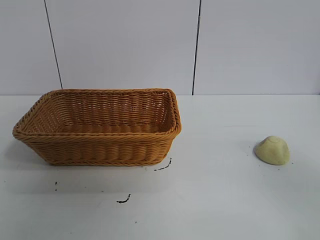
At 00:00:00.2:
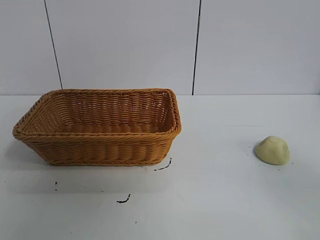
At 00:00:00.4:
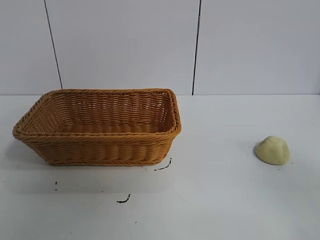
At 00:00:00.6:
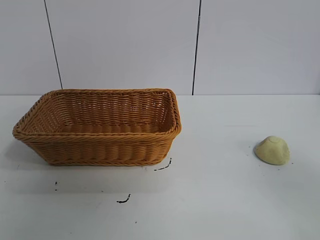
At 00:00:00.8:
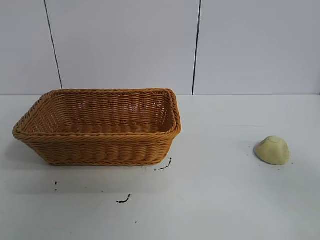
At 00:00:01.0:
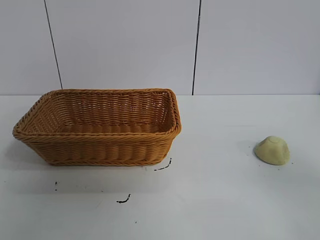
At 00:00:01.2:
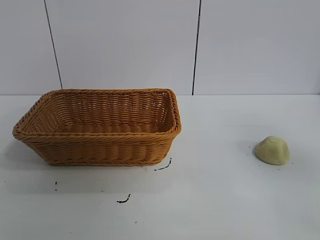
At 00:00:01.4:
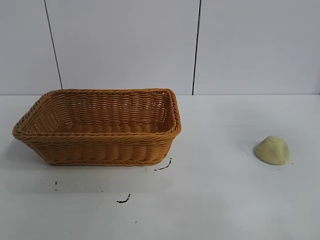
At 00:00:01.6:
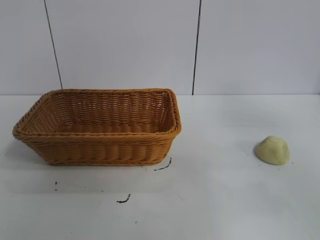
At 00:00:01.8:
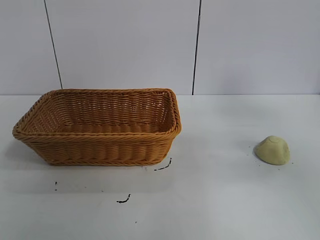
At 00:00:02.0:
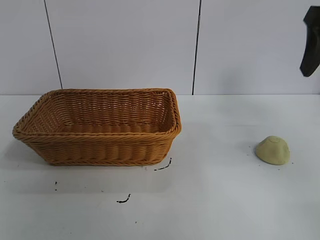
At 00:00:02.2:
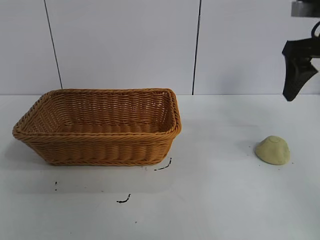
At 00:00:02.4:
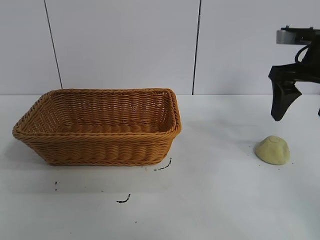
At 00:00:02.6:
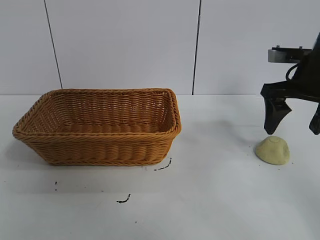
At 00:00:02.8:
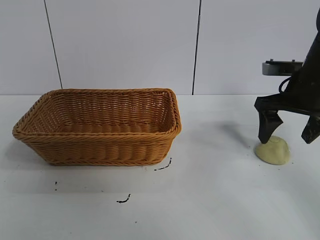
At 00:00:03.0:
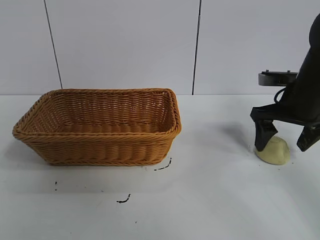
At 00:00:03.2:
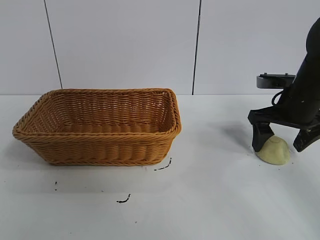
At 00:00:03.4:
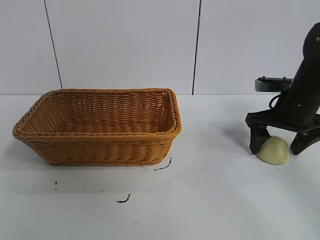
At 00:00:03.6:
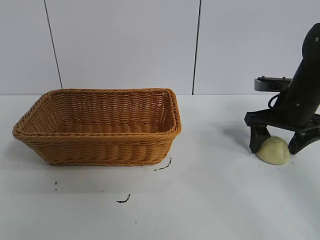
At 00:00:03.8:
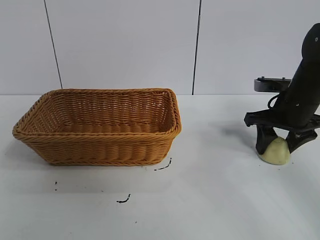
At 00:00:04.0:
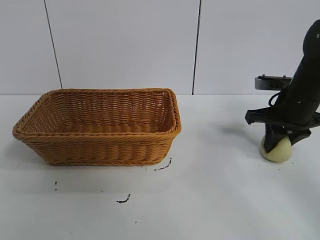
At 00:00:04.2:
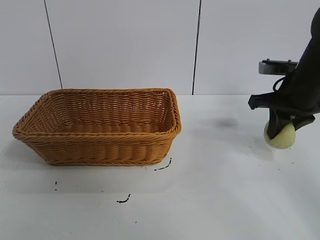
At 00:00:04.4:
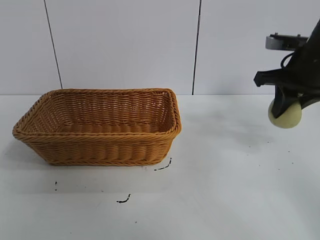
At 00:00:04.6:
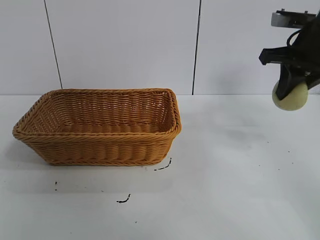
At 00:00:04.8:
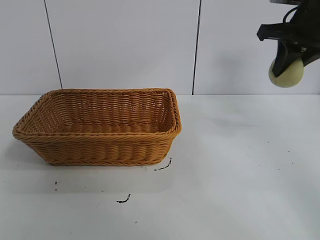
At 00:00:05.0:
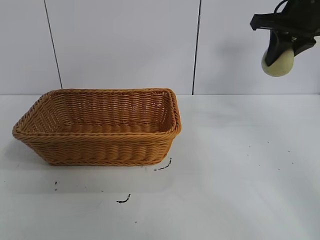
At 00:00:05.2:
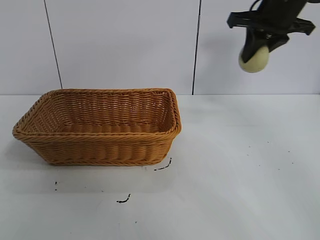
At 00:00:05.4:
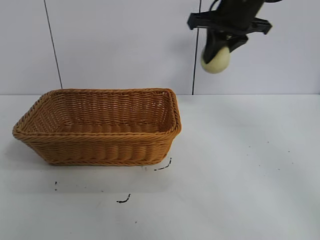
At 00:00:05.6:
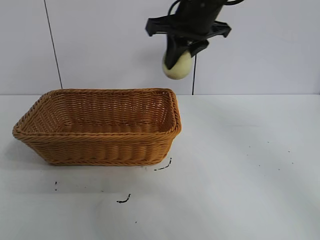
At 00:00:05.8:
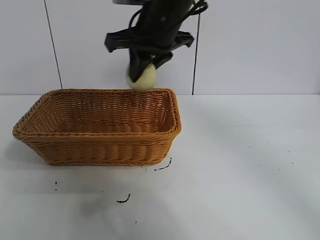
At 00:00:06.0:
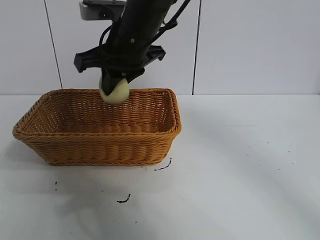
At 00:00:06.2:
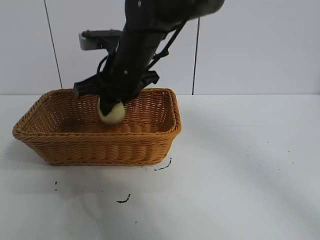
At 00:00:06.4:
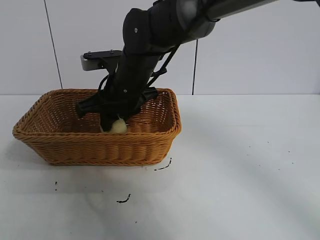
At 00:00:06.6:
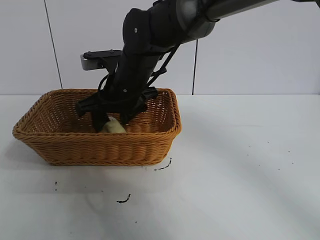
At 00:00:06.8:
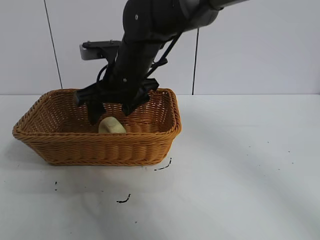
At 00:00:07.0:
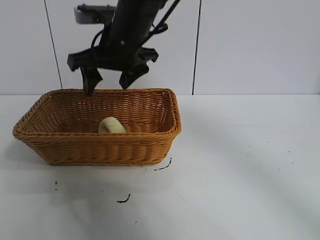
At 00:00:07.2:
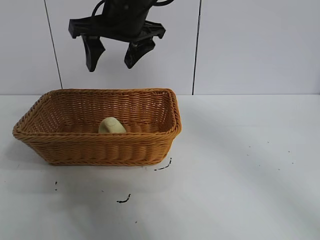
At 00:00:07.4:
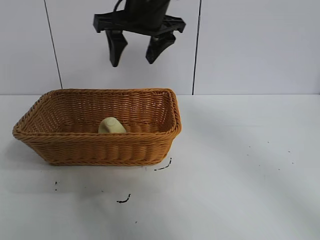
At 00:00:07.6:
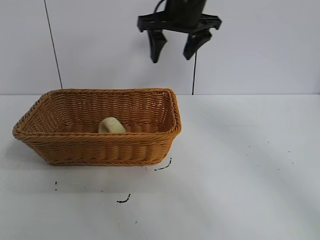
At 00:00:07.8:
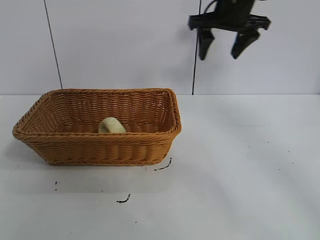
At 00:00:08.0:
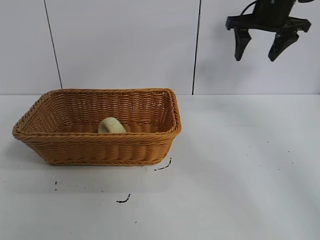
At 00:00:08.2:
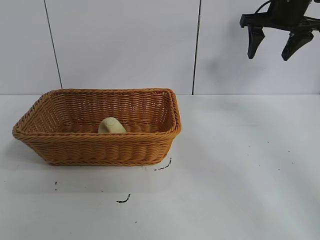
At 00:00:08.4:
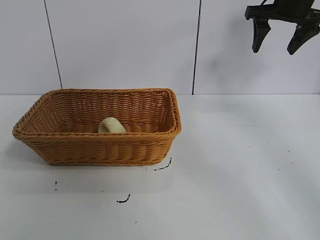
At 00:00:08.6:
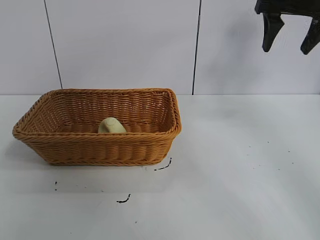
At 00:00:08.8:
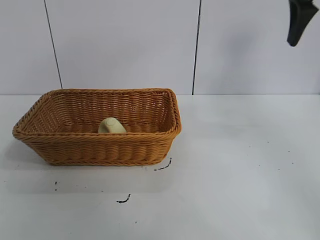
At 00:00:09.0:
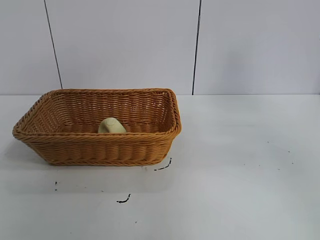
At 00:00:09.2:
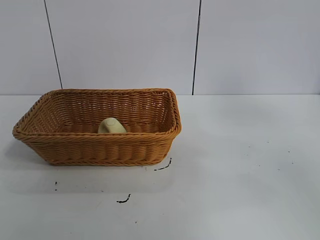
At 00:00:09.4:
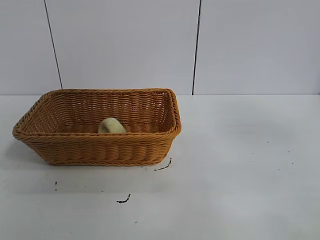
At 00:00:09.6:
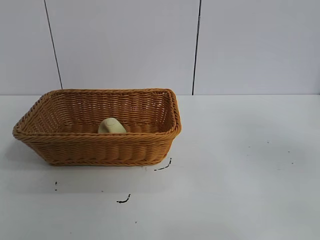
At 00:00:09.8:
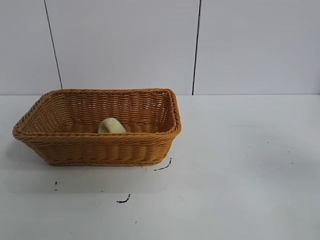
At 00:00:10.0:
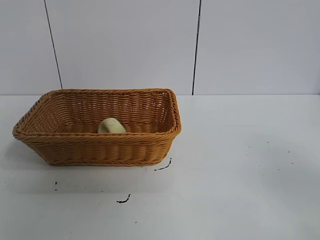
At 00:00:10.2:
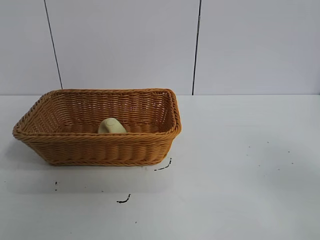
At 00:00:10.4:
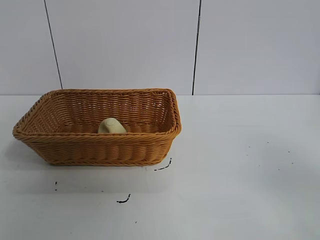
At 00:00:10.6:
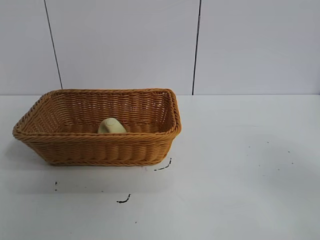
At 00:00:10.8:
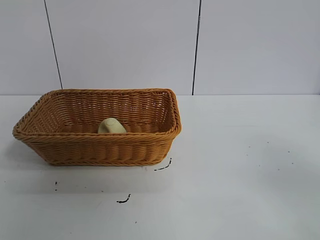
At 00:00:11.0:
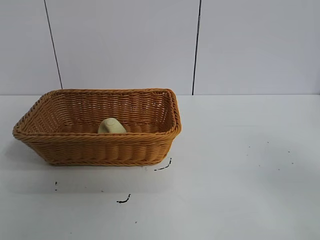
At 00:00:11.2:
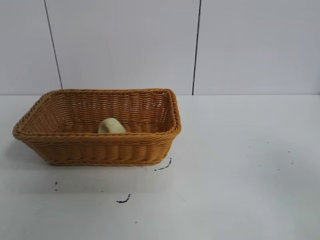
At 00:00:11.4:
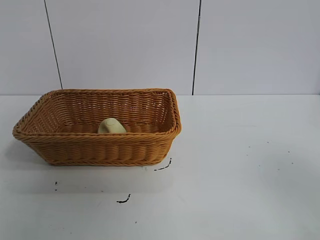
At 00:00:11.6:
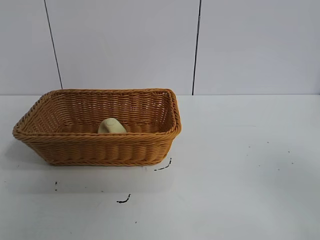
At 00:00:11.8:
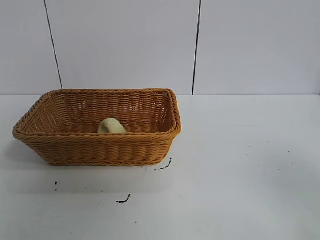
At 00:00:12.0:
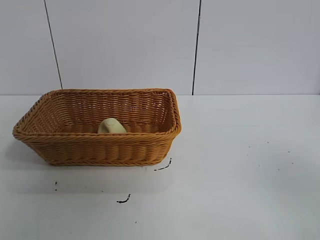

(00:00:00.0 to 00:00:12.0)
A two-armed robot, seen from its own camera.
Task of the whole recording: pick up the egg yolk pastry and put it into the basket.
Step, 00:00:01.0 - 00:00:03.8: Grasp egg yolk pastry with right gripper.
Step, 00:00:04.0 - 00:00:06.4: Place the egg yolk pastry in the basket with right gripper.

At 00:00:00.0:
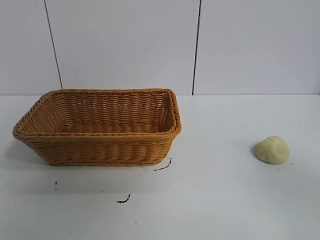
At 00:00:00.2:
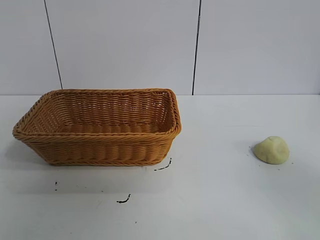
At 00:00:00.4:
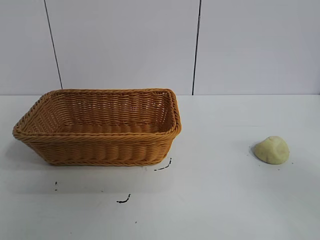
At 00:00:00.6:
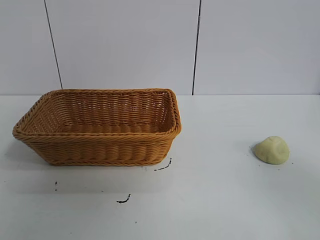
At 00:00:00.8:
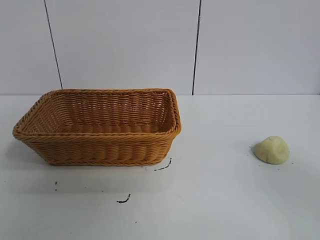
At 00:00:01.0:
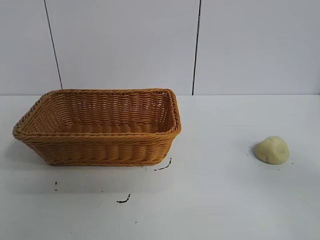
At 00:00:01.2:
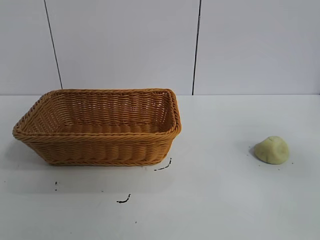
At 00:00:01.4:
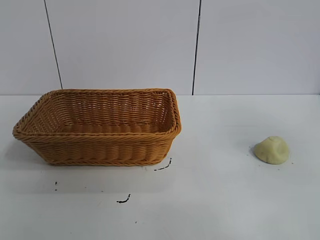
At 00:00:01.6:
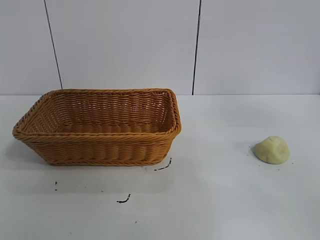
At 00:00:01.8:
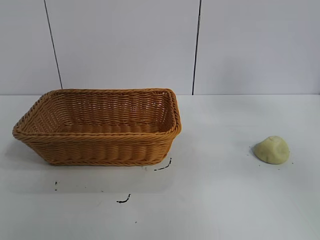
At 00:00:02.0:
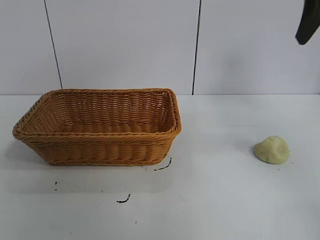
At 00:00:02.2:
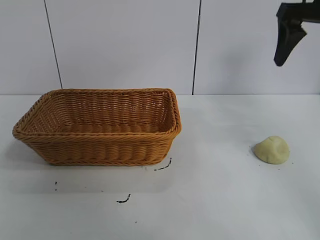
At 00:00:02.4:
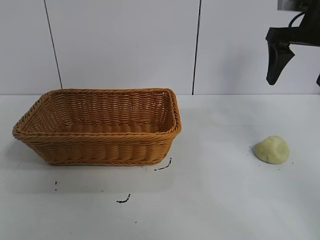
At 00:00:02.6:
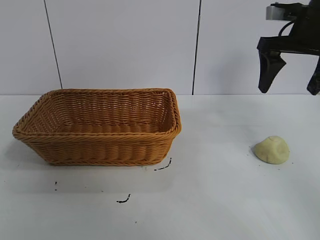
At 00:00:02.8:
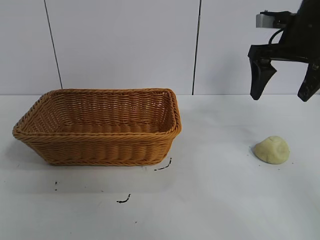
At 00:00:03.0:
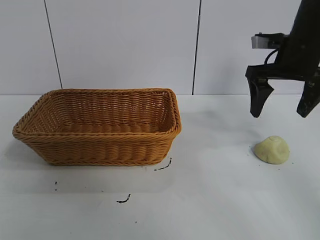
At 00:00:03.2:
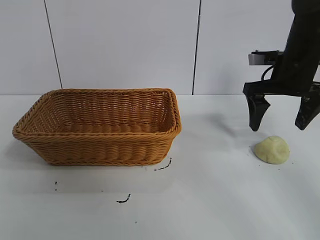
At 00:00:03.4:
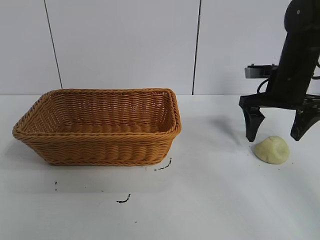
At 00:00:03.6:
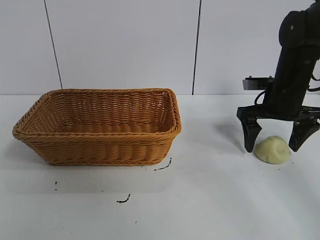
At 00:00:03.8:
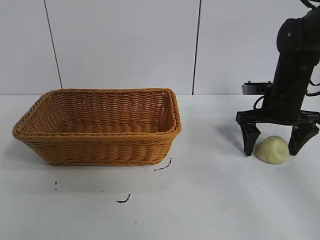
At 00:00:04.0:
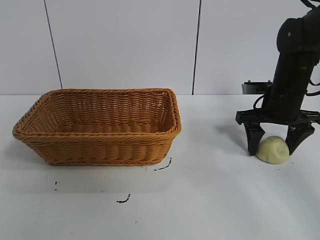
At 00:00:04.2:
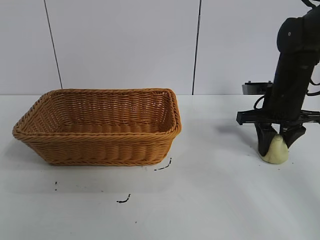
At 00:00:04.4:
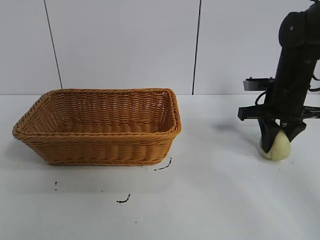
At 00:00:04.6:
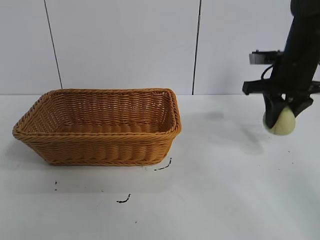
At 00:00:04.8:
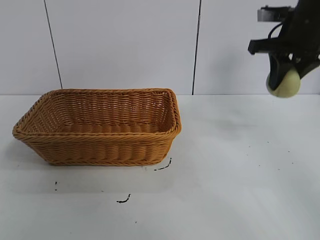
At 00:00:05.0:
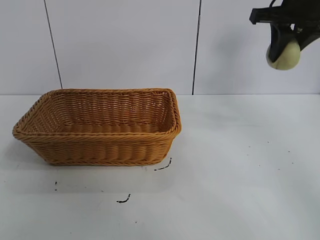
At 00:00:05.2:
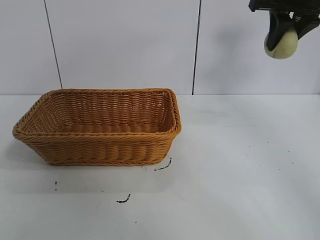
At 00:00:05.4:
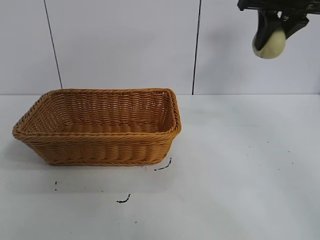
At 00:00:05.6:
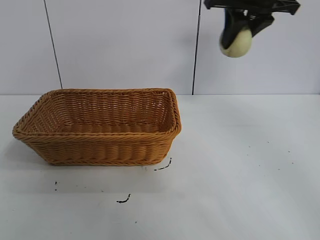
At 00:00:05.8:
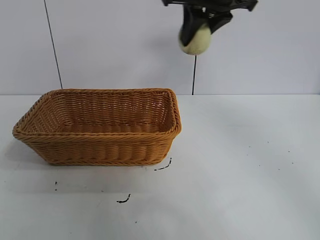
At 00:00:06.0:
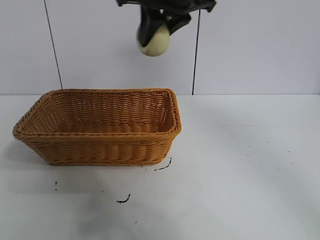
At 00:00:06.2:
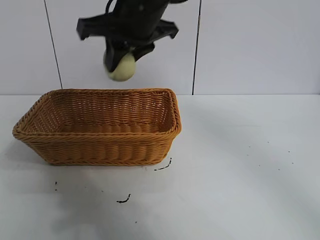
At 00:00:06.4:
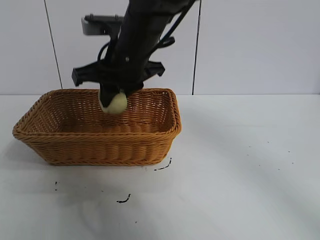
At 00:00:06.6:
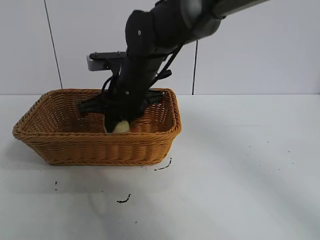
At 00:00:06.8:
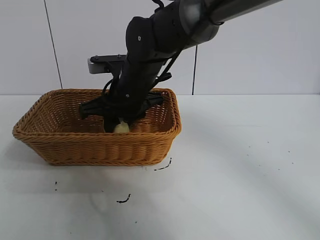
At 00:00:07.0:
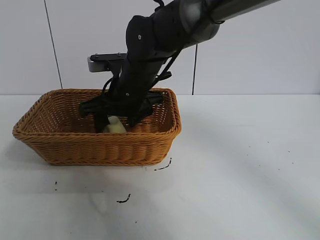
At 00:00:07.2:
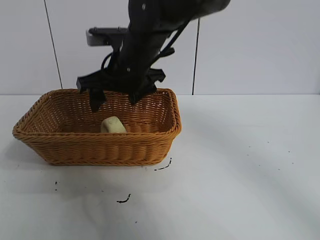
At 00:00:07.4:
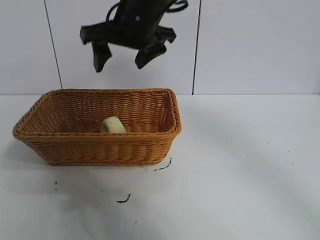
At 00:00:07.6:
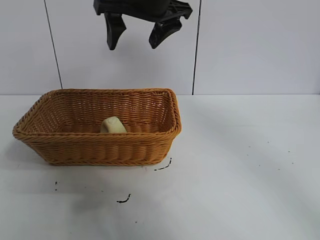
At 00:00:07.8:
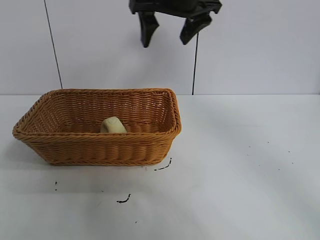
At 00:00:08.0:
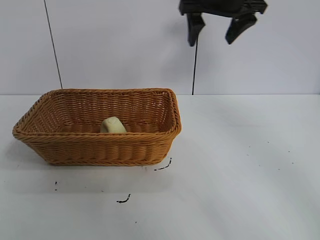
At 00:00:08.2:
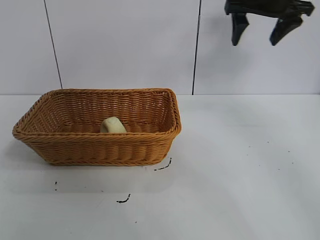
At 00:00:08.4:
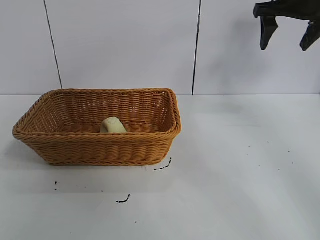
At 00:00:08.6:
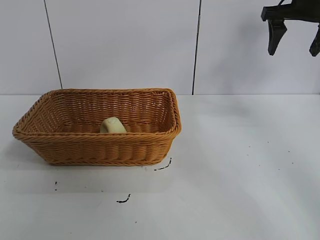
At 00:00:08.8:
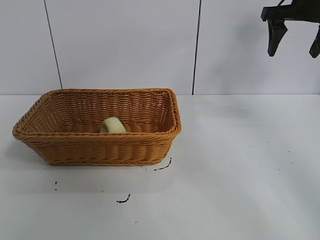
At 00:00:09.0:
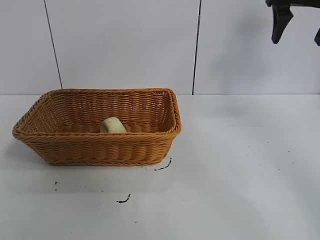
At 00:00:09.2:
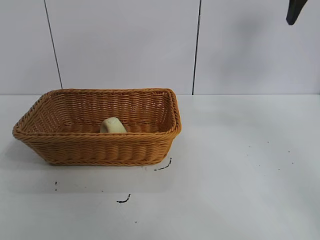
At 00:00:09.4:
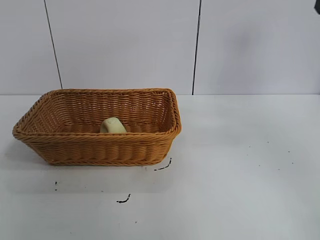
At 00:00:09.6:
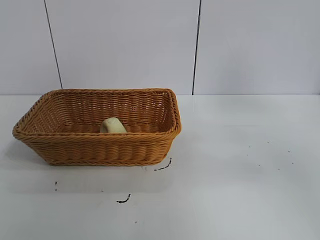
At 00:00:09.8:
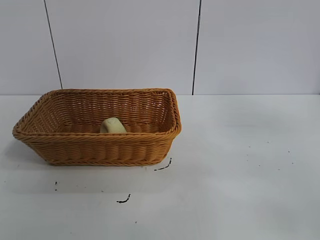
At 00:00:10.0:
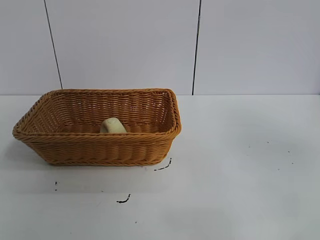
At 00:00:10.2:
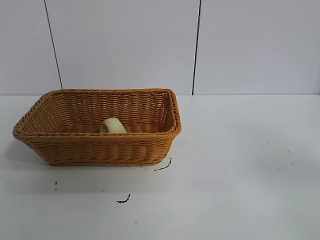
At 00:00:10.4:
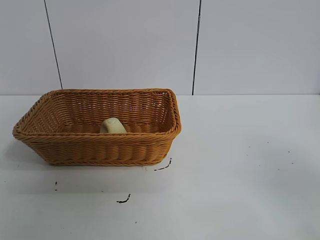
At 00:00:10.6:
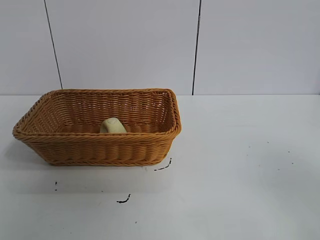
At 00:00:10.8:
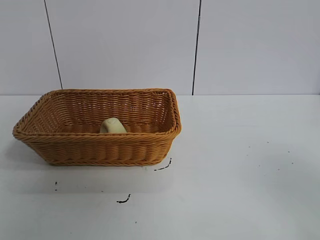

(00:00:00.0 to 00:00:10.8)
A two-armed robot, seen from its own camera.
Task of the whole recording: pick up the egg yolk pastry and put it into the basket.
Step, 00:00:00.8 - 00:00:04.2: Grasp egg yolk pastry with right gripper.
Step, 00:00:04.4 - 00:00:07.0: Place the egg yolk pastry in the basket with right gripper.
